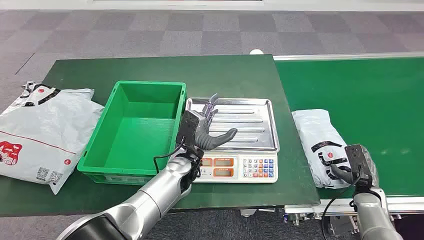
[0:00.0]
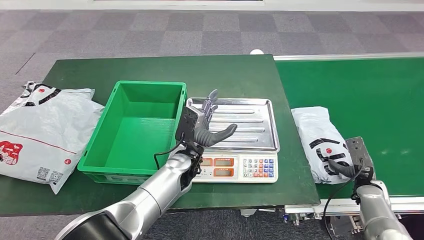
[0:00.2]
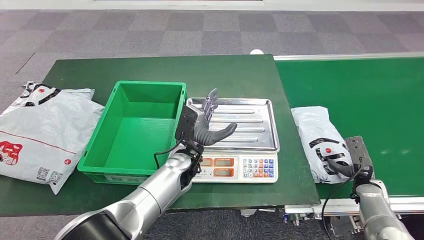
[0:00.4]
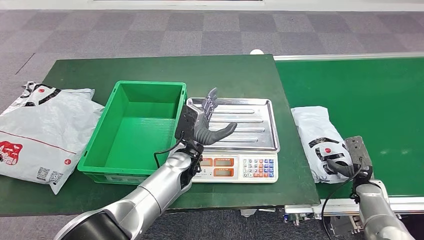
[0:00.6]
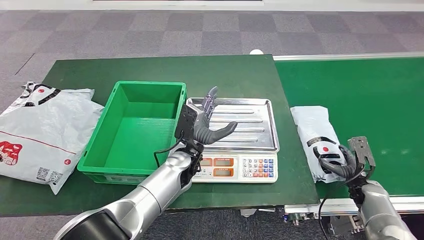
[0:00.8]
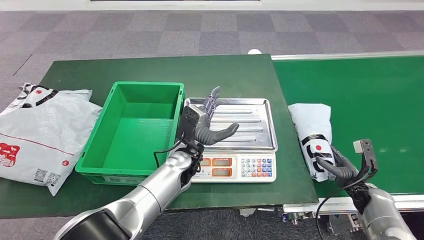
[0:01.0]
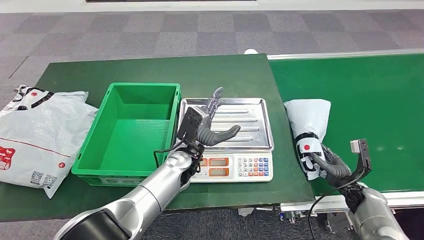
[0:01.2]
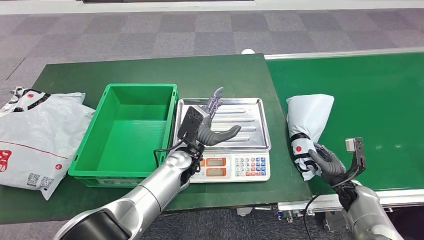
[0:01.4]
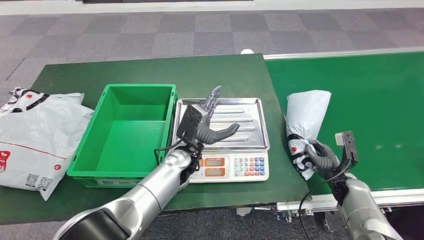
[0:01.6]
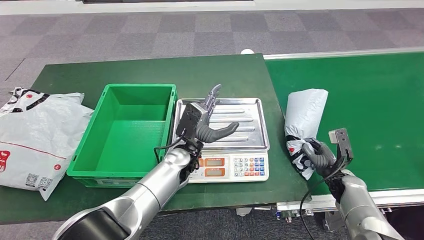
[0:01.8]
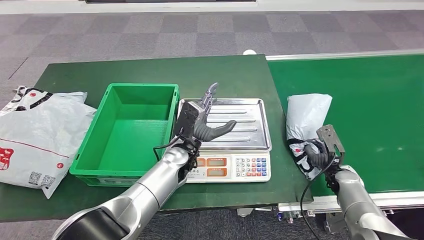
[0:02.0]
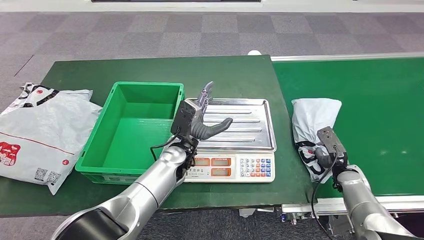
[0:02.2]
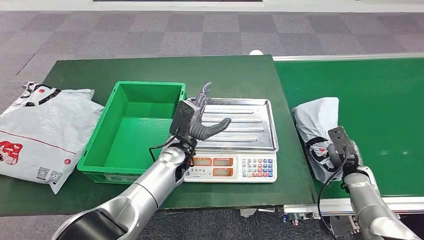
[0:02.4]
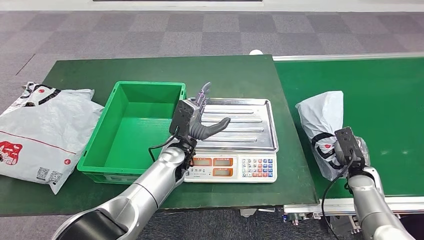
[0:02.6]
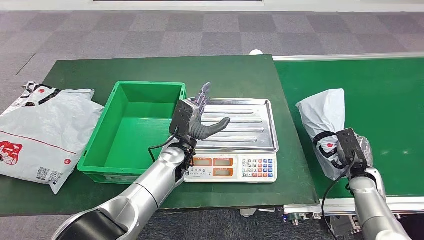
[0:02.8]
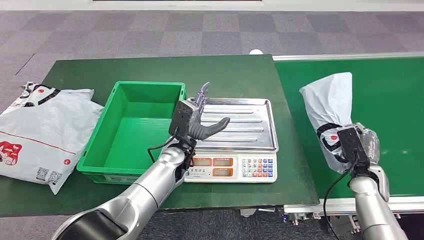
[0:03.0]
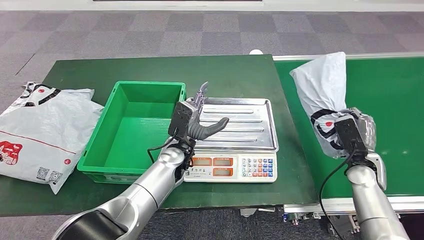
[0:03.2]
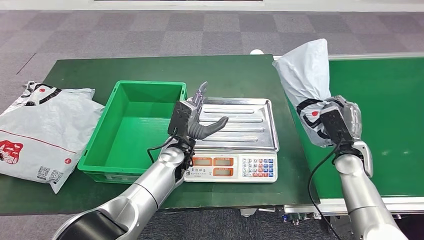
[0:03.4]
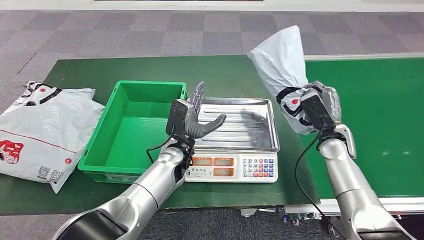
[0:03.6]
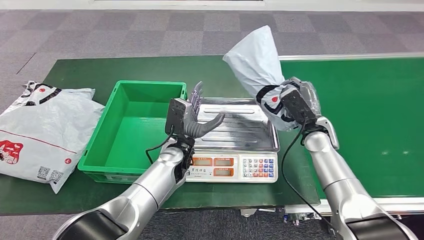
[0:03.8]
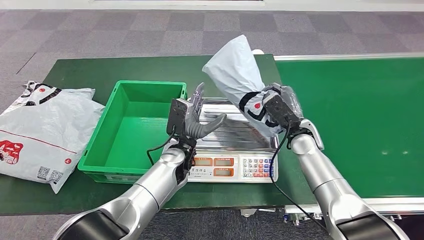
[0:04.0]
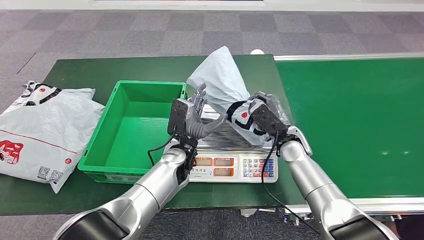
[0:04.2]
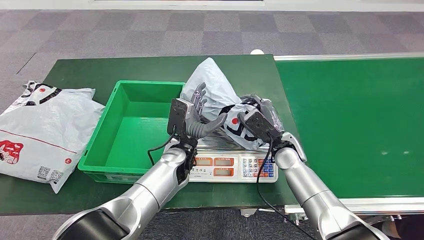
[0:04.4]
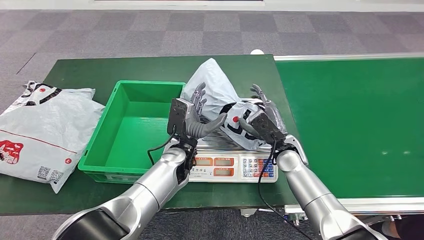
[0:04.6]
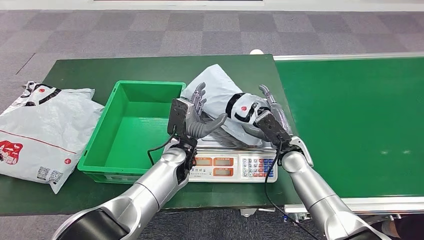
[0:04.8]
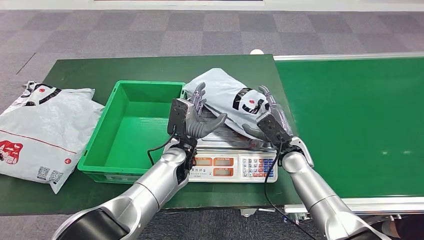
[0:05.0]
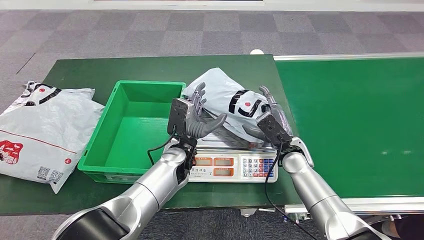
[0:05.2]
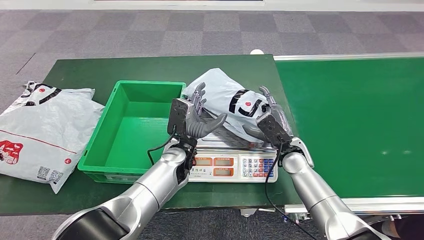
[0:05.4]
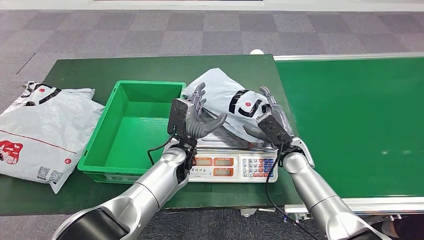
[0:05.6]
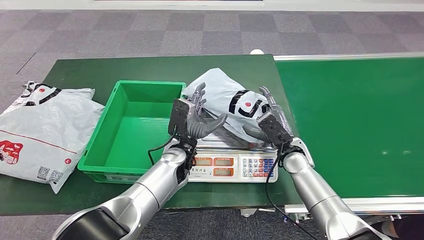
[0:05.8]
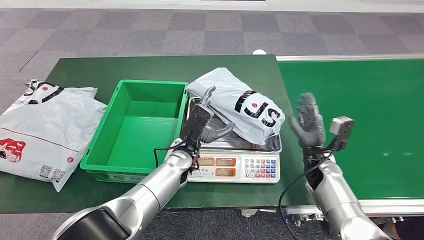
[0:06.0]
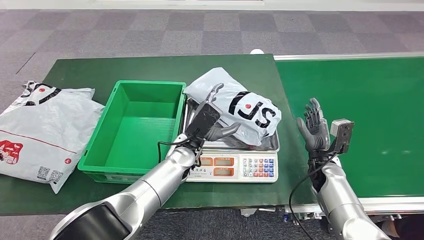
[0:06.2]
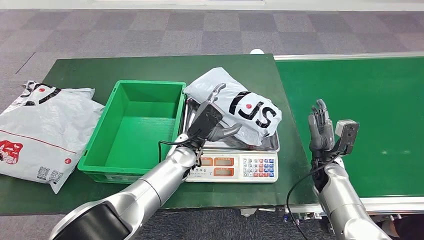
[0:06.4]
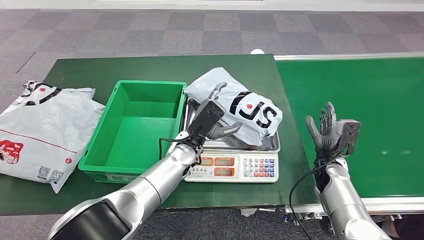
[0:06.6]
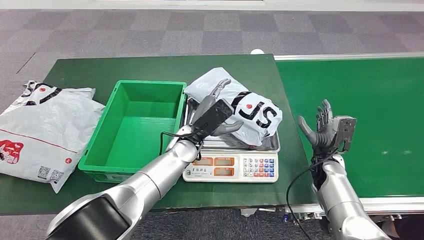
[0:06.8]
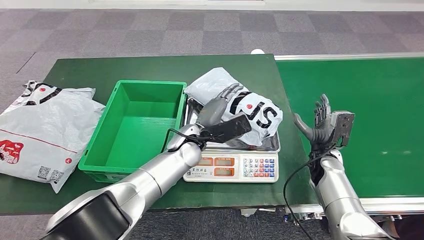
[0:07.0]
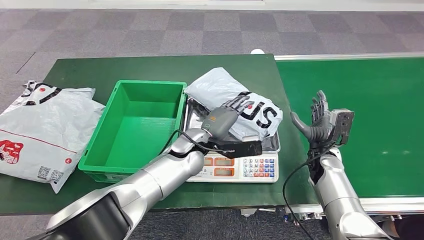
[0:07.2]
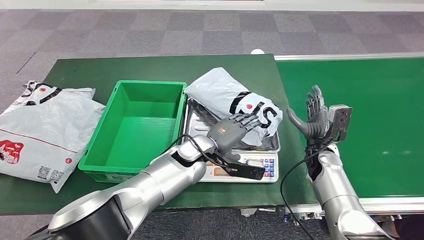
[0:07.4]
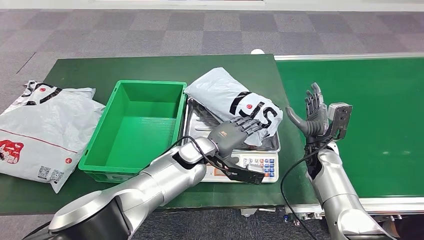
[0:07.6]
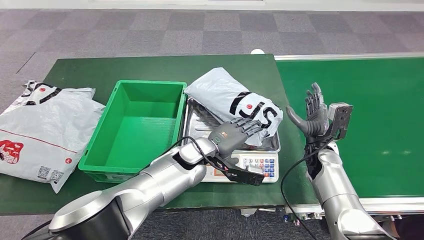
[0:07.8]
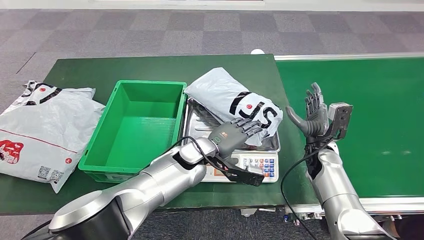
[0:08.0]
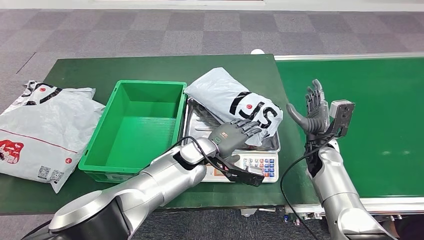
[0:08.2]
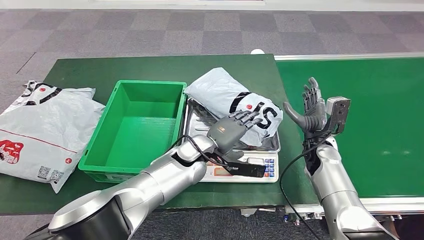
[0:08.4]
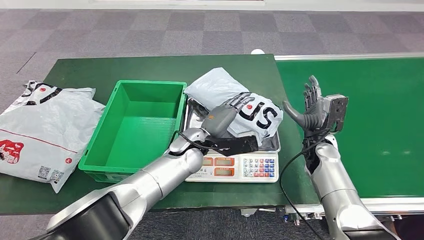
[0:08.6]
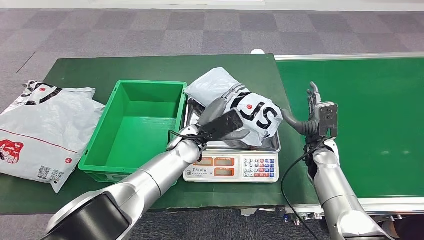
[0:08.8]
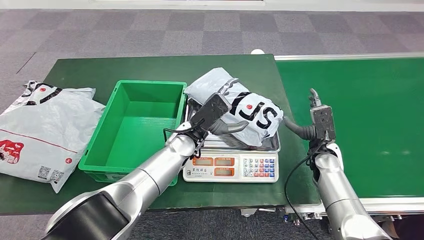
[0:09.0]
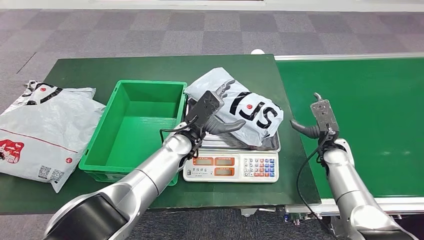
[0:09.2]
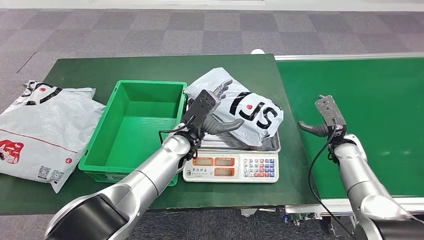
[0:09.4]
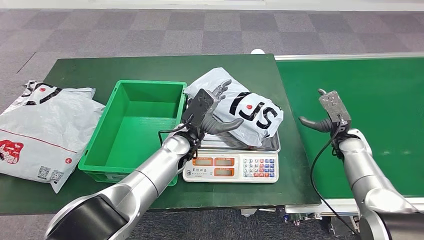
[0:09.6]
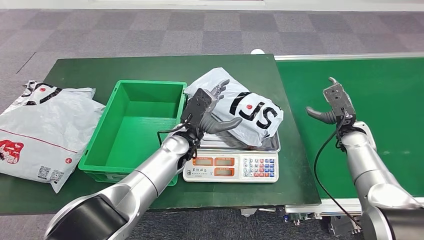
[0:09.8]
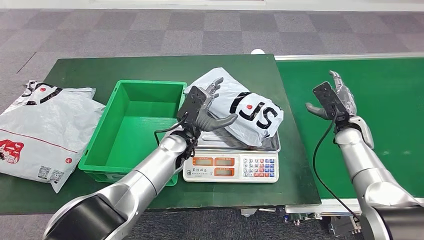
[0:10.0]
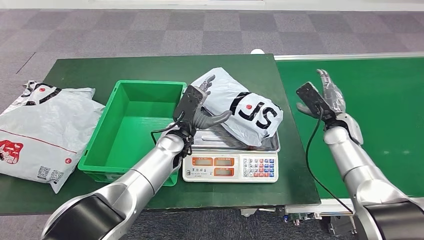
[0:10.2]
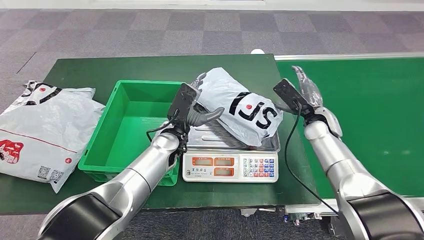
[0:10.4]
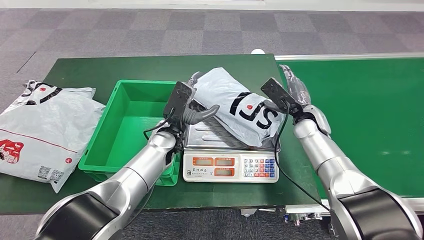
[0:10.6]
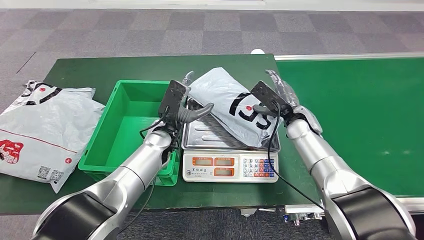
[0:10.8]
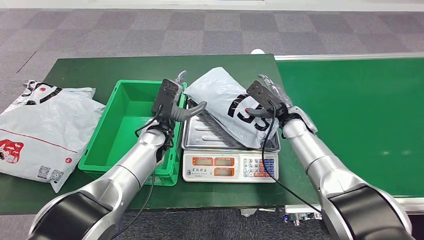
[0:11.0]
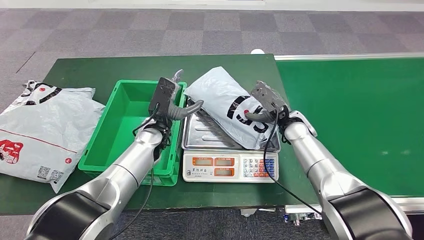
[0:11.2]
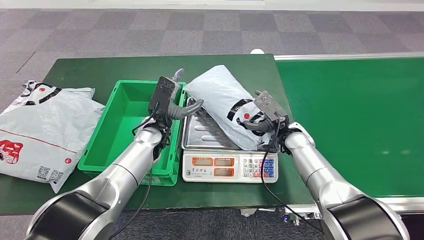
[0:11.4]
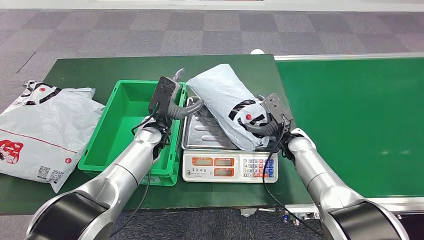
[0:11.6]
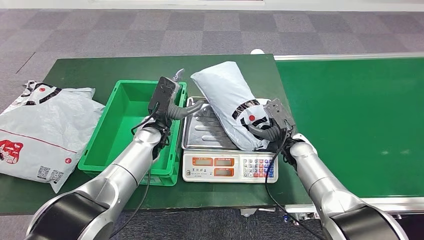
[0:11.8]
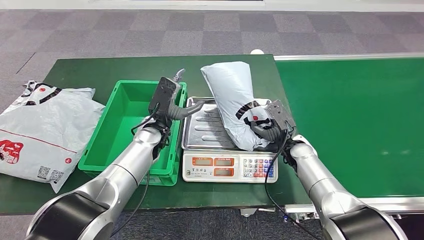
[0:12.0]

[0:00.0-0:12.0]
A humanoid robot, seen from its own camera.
Step, 0:00.0 to 0:03.2: Take the parcel off the conveyor belt.
Step, 0:03.4 to 0:07.2: Place the parcel onto the inbound machine.
0:09.0 to 0:10.4: The right hand is displaced upward and forward by approximately 10 cm, and reaches some 10 cm to the right, then returns.

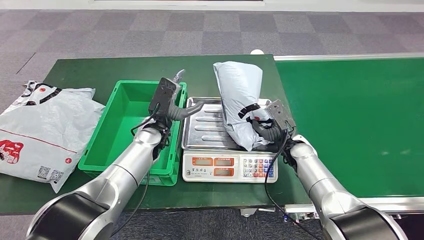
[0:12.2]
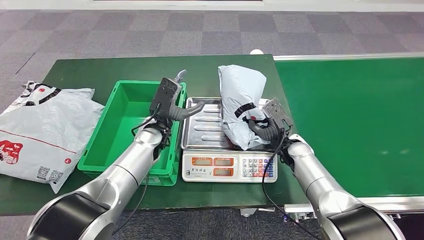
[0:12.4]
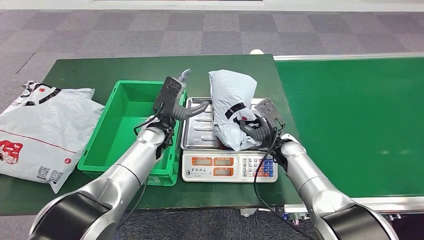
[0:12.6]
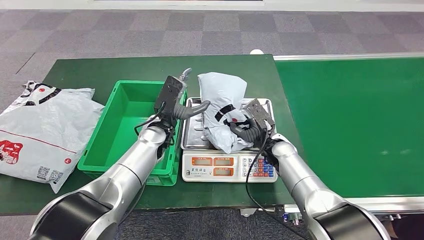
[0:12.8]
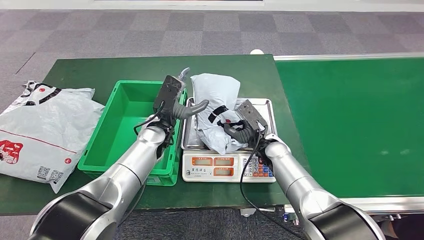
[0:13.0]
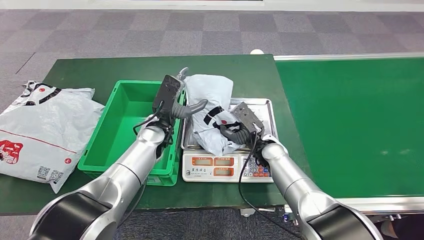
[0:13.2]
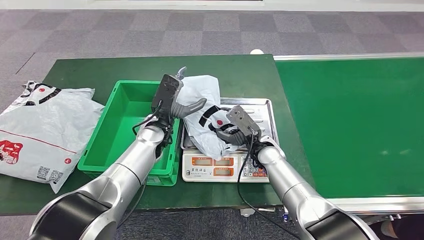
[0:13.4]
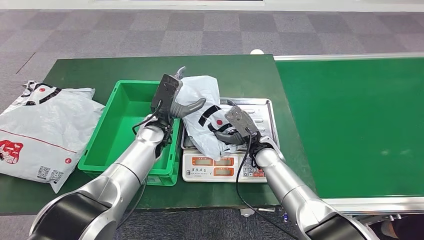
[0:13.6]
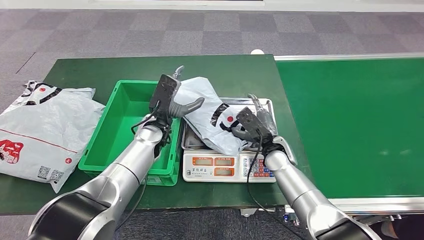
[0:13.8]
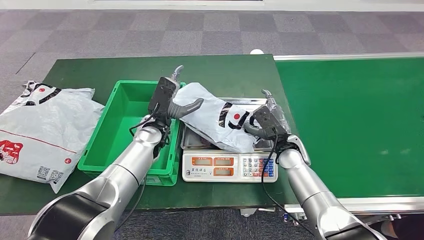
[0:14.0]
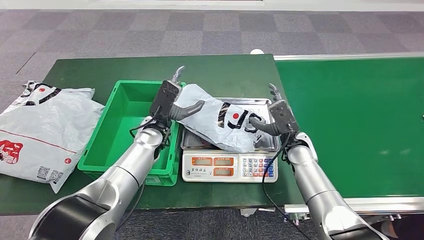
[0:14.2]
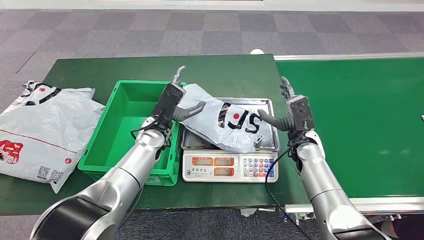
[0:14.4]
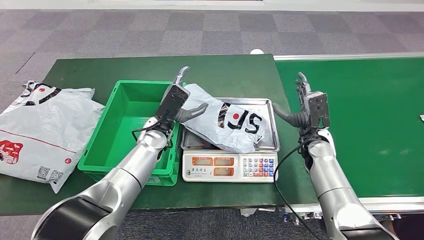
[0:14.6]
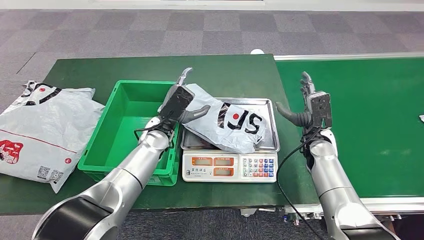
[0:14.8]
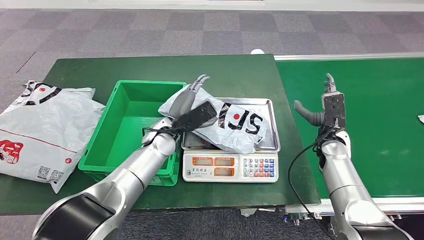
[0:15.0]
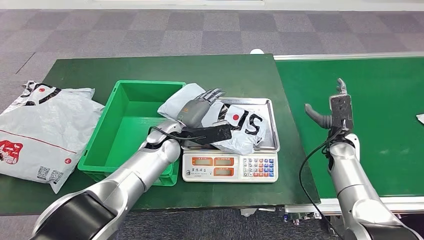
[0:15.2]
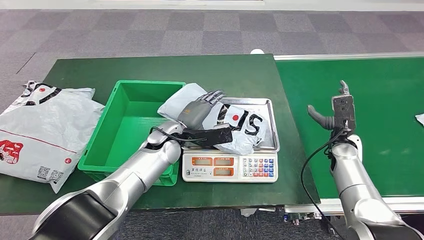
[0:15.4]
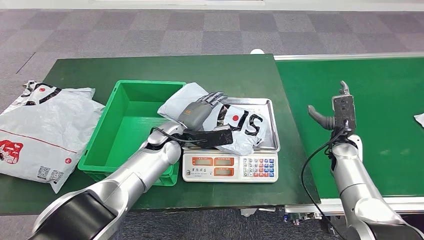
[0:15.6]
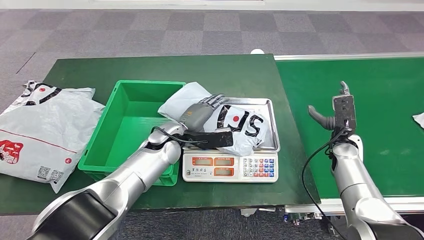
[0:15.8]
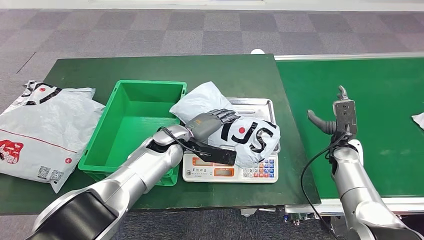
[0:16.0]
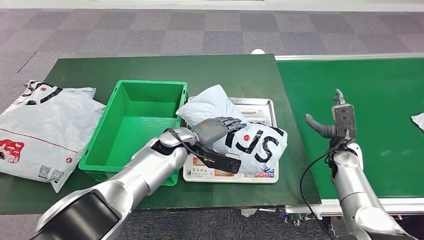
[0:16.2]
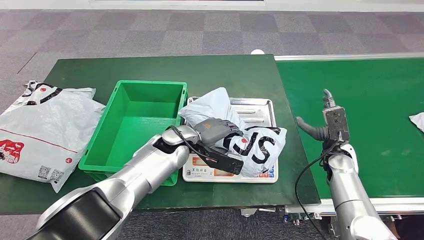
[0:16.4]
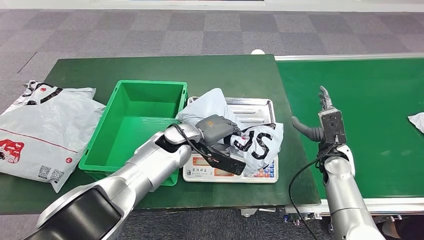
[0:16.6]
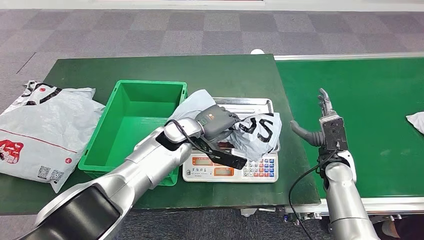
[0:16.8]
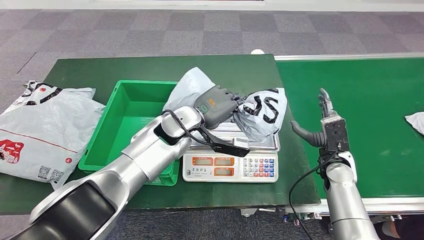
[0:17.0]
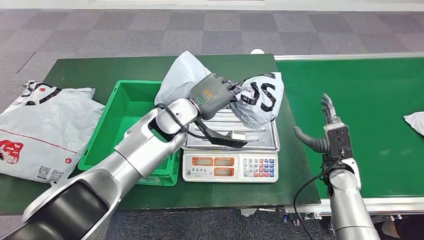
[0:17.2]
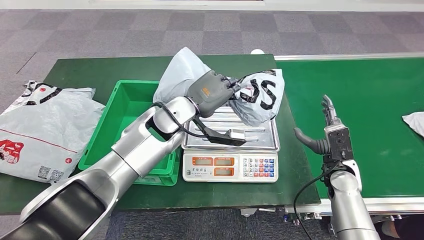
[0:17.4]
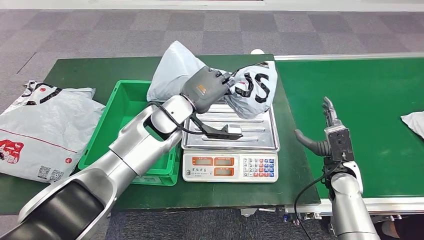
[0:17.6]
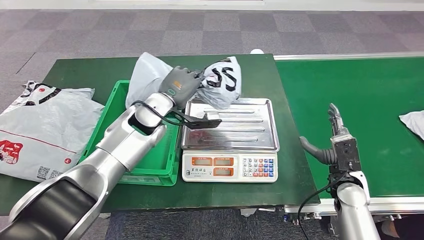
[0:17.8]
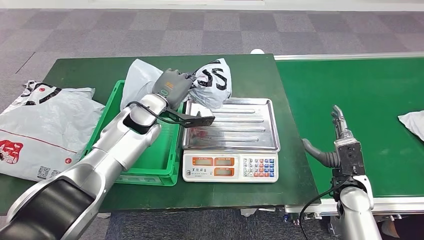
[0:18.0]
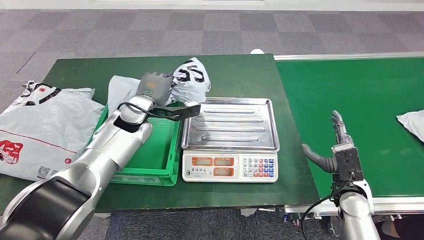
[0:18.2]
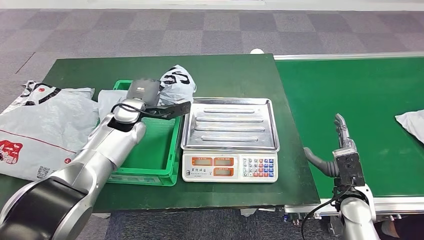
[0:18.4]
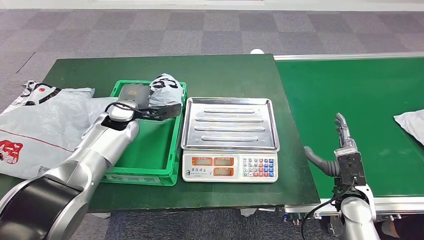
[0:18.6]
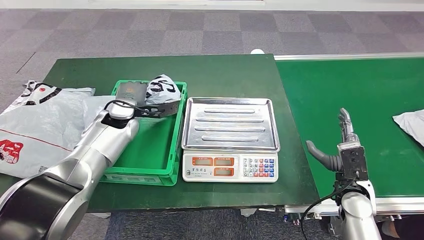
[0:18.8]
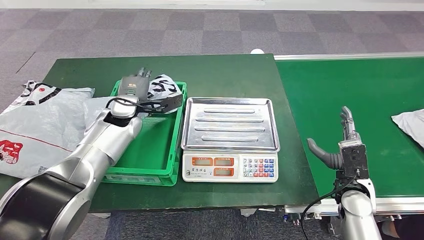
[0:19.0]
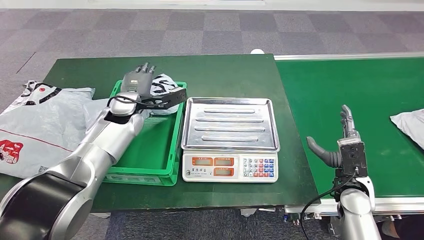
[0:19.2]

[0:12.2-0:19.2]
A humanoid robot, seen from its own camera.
Step, 0:17.0 to 0:18.0: Pick up the parcel from the inbound machine.
0:12.2 to 0:13.6: The right hand moves to the left, some 10 cm.
0:17.8 to 0:19.2: The left hand shifts approximately 10 cm to the left.
